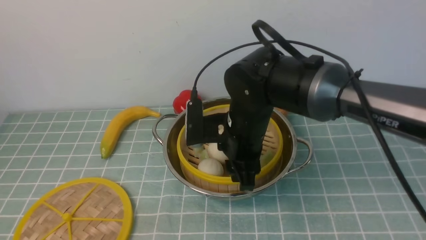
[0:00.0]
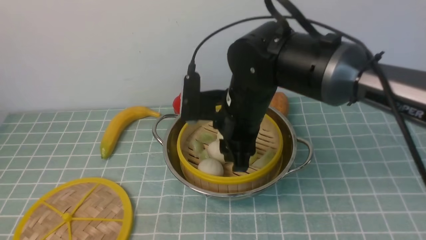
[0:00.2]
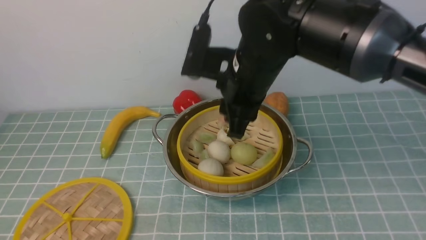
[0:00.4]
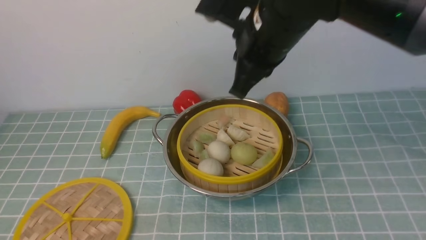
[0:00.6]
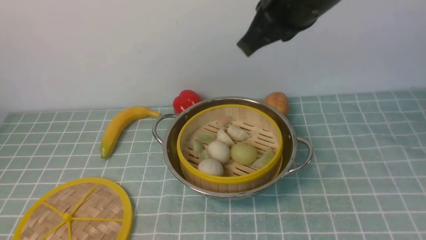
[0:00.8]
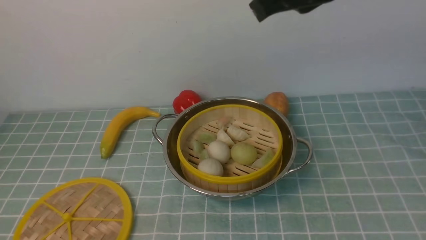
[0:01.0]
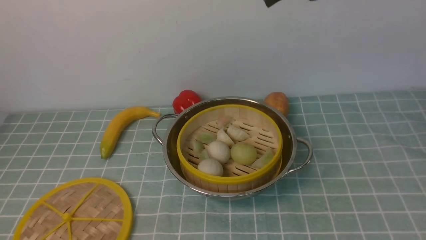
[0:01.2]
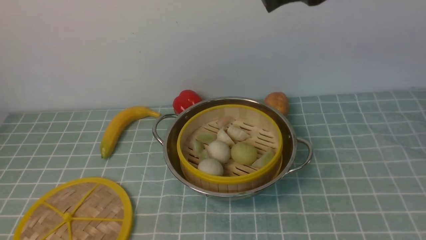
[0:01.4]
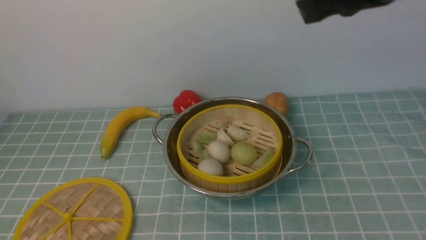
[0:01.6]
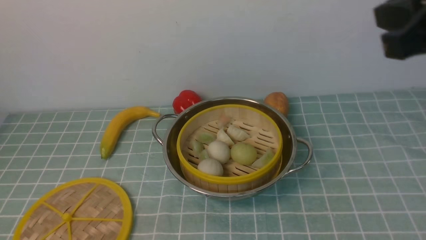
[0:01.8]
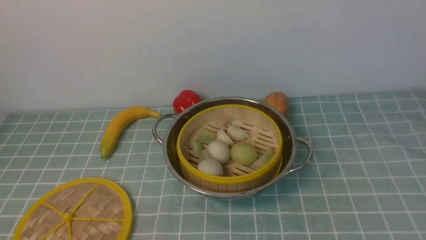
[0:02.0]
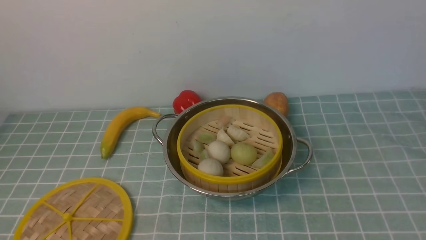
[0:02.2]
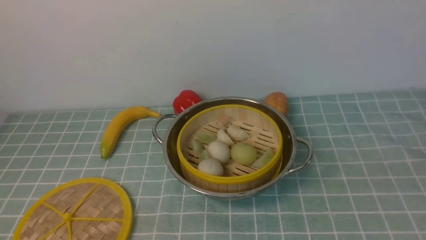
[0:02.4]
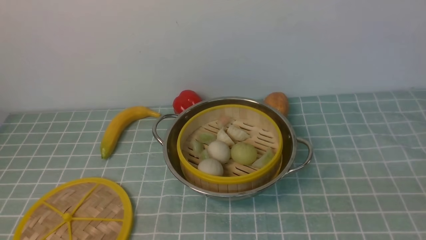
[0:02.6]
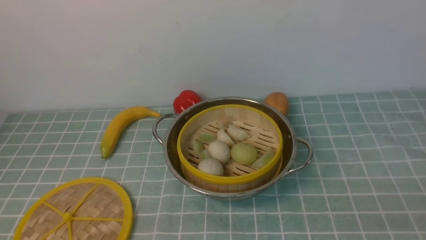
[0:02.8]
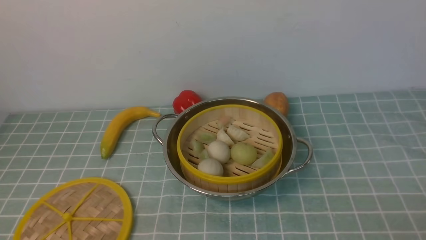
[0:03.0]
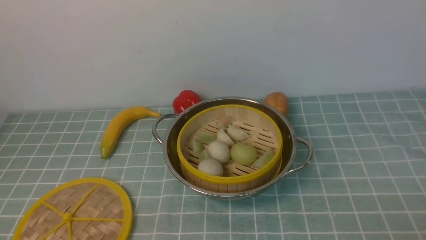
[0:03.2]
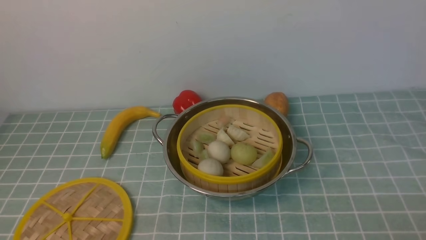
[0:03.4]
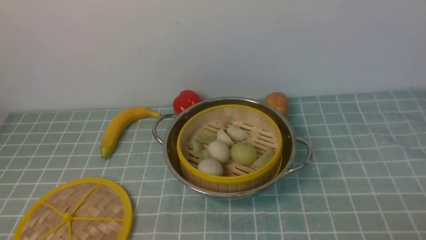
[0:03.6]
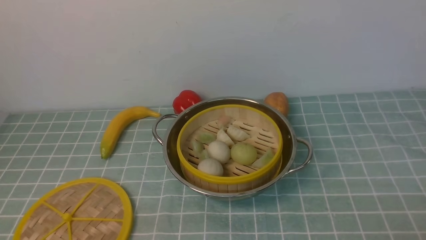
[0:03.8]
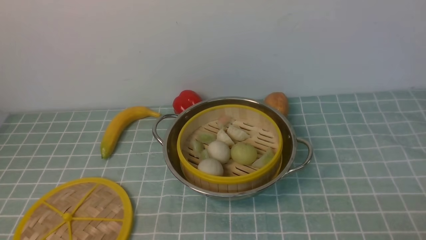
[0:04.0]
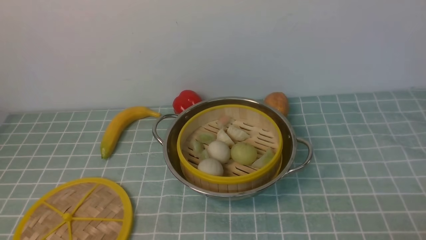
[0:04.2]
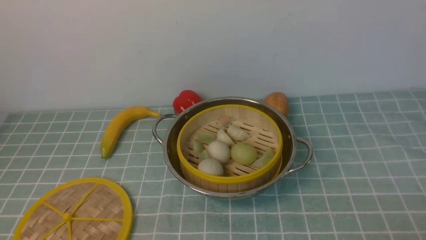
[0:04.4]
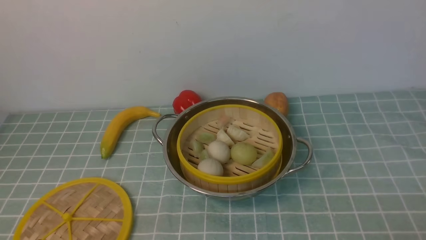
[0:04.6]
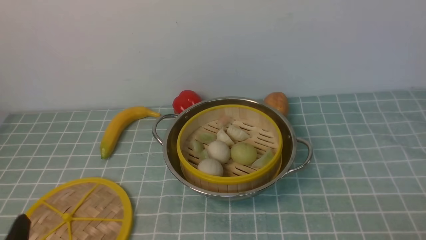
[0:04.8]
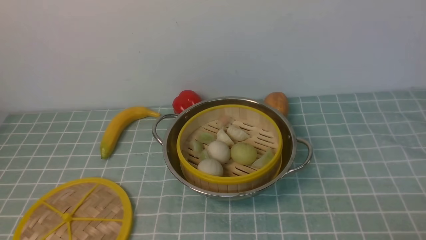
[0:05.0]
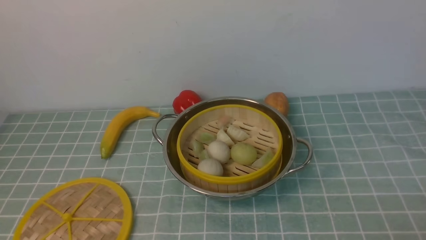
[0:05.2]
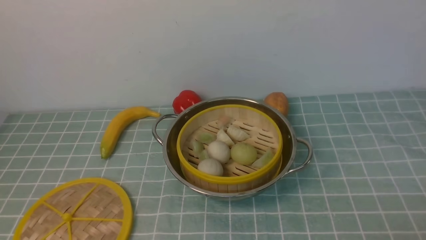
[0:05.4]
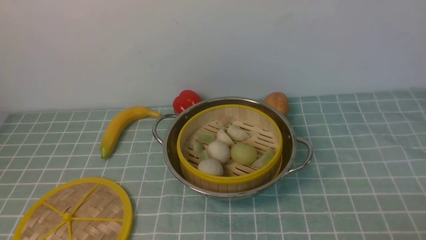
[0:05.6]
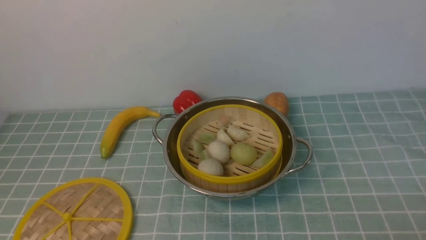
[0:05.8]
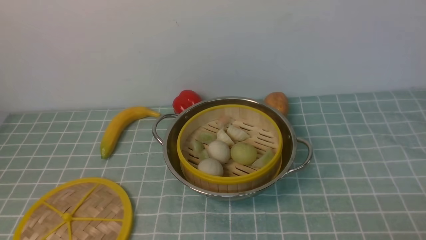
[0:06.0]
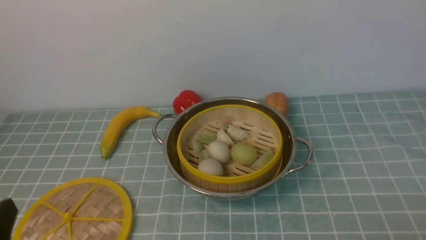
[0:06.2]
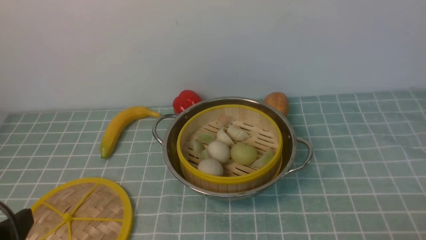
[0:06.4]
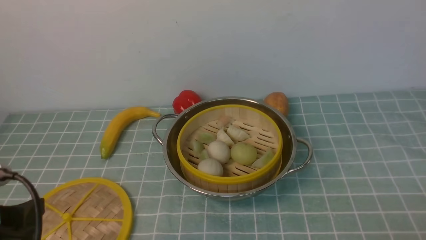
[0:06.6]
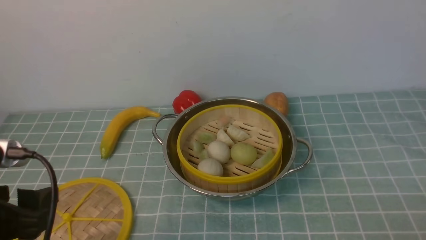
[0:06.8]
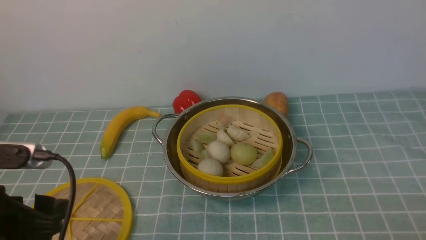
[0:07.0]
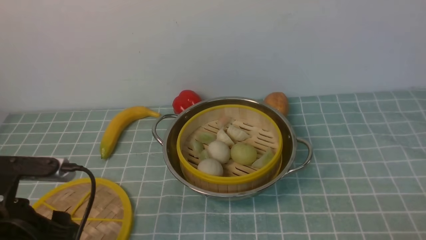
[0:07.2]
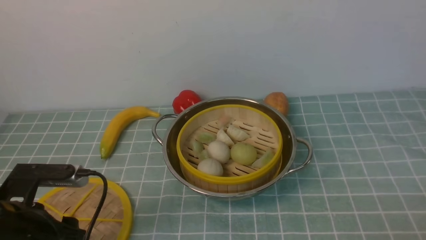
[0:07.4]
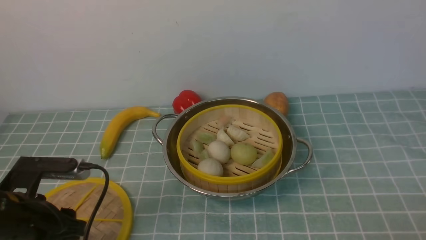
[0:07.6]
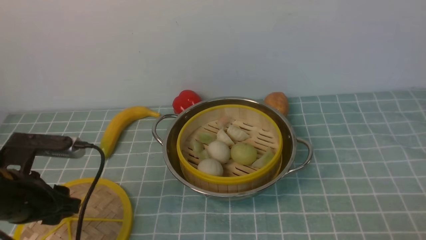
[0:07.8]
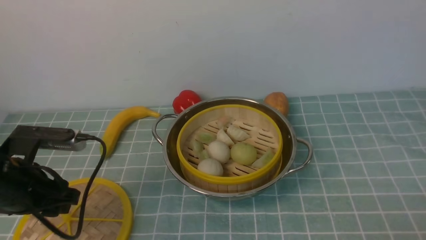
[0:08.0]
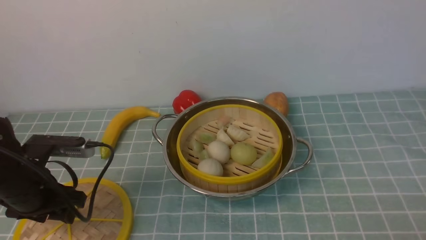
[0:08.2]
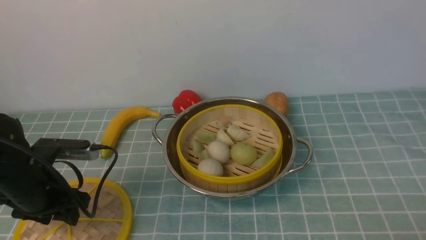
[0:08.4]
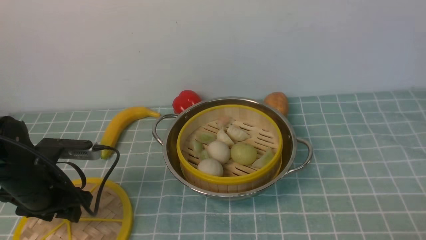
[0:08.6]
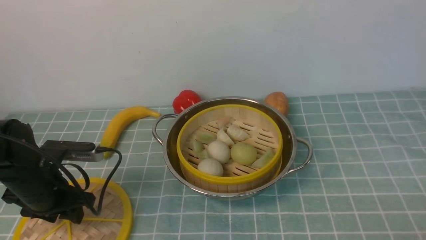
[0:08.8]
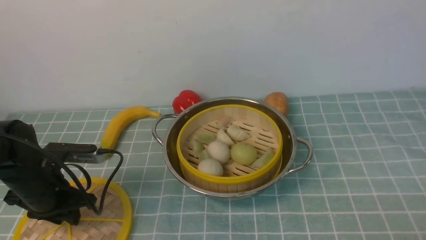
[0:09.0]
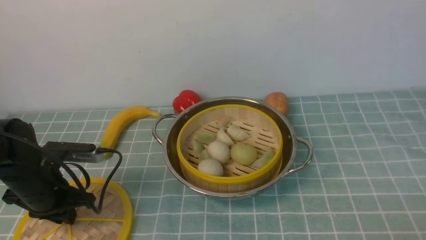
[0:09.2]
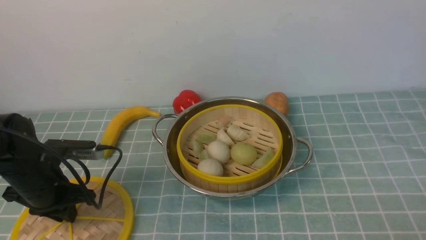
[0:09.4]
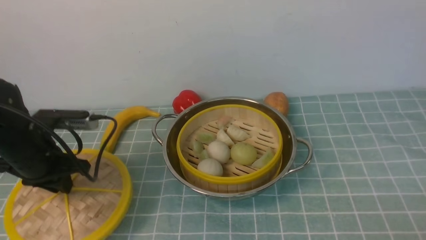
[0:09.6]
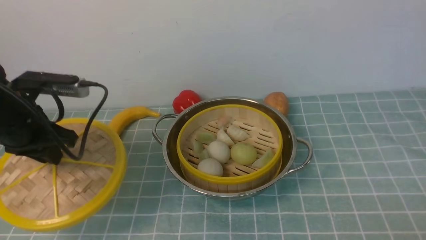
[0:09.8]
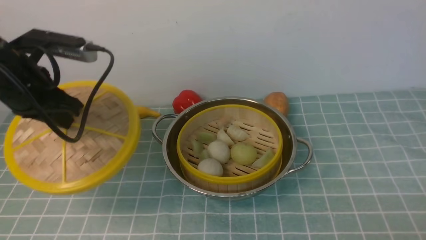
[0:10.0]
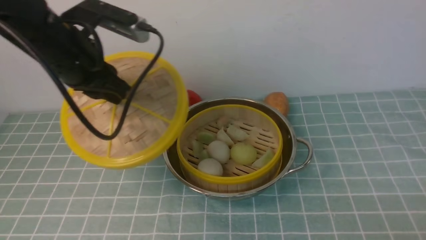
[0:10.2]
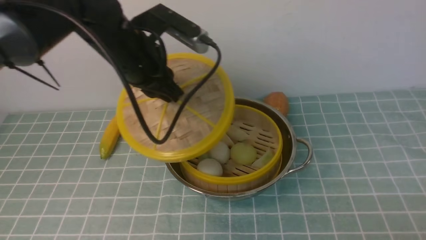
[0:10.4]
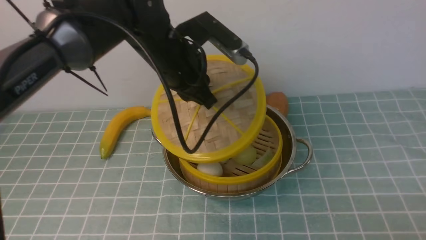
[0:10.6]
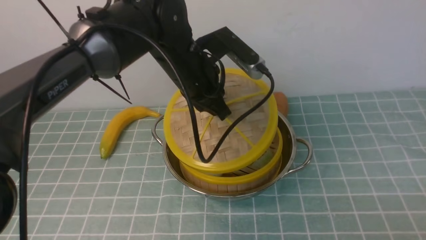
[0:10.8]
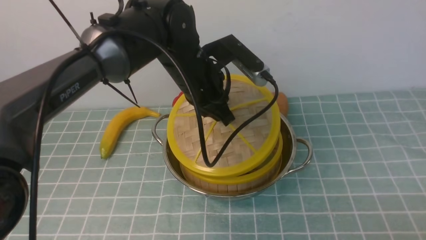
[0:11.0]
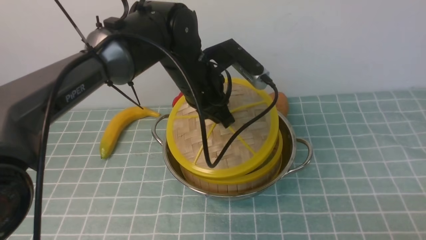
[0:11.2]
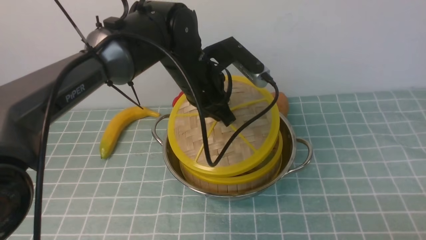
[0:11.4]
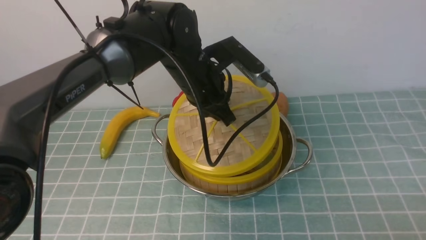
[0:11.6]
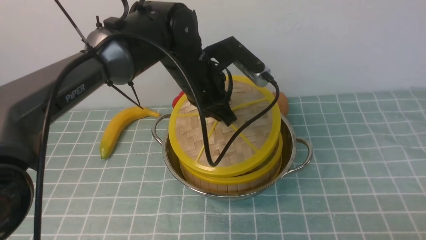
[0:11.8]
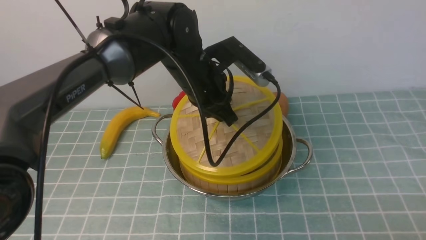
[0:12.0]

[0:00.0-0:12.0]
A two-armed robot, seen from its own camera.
Task of the whole recording: place the steamer in the pot on the blue tablecloth, and put the lid on the steamer.
Step, 0:00.4 to 0:09.8: use the left arm to lift the lid of the steamer.
0:00.0 to 0:01.6: The right gripper shifts some 25 cm upward and to the right, and closes up.
0:01.6 to 0:03.0: The right gripper moves downward, backward and to the right, some 35 cm, and opens up.
0:06.0 to 0:07.6: The left gripper goes approximately 15 cm forward and downward.
0:07.6 to 0:09.0: The left gripper moves forward, roughly 10 cm, and closes up.
0:09.0 to 0:10.4: The left gripper is displaced upward, to the right and forward by approximately 25 cm.
0:10.4 to 0:12.0: The left gripper travels to the right and downward by roughly 15 cm.

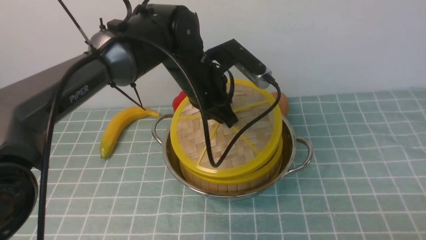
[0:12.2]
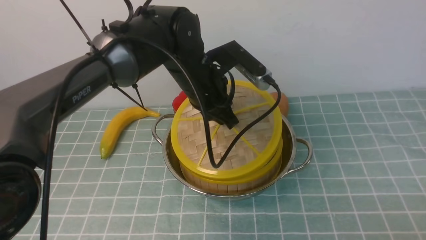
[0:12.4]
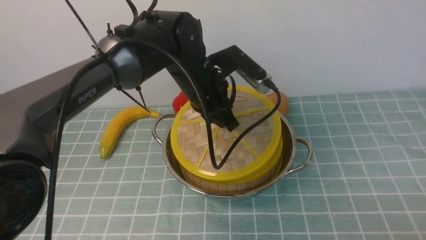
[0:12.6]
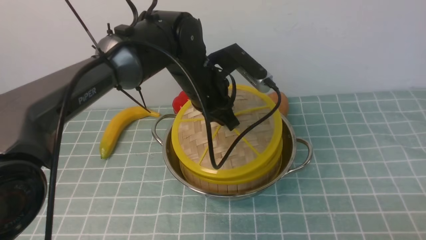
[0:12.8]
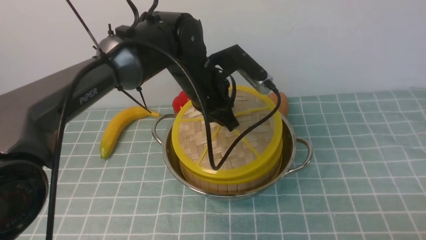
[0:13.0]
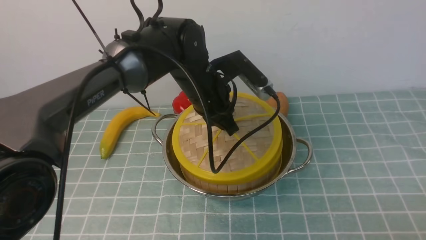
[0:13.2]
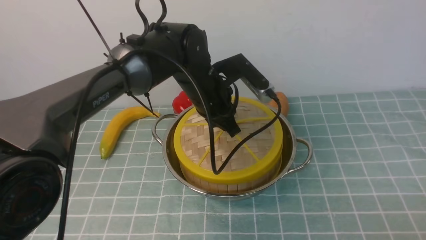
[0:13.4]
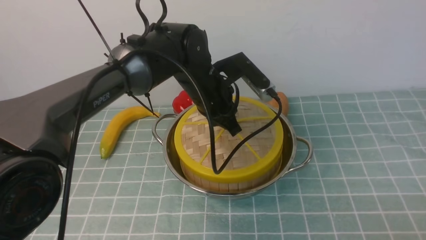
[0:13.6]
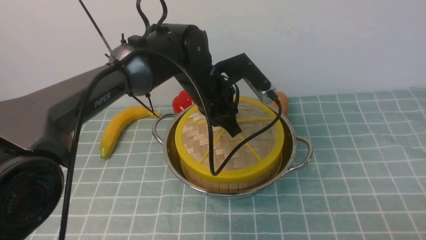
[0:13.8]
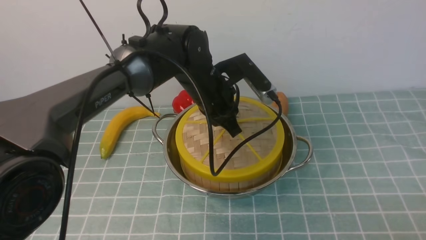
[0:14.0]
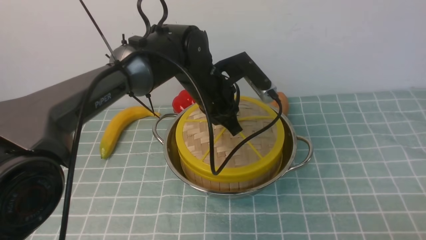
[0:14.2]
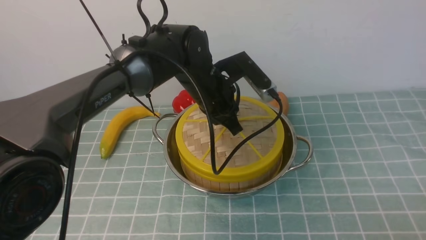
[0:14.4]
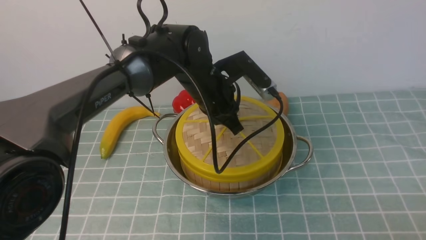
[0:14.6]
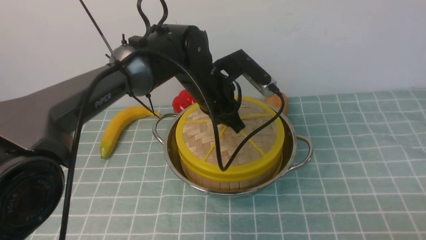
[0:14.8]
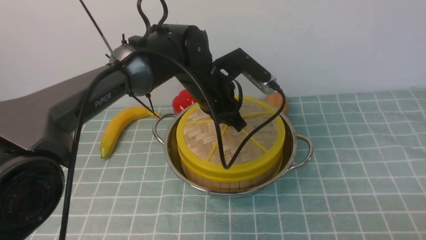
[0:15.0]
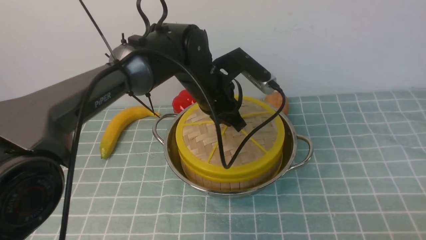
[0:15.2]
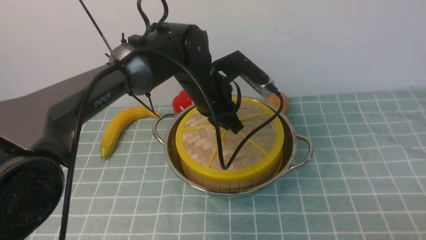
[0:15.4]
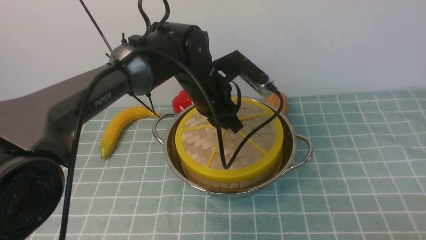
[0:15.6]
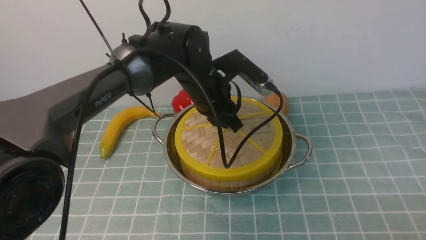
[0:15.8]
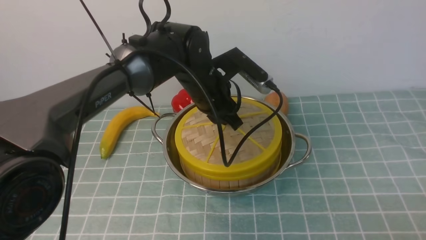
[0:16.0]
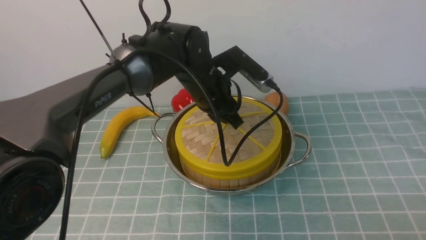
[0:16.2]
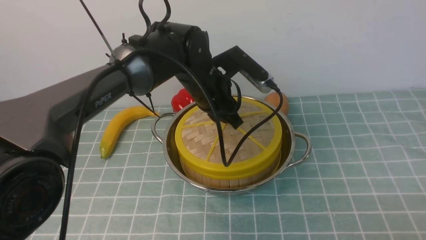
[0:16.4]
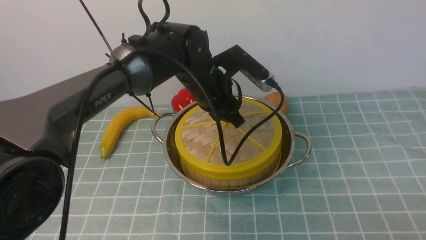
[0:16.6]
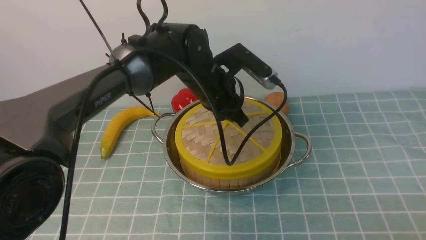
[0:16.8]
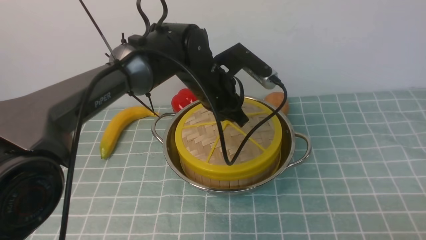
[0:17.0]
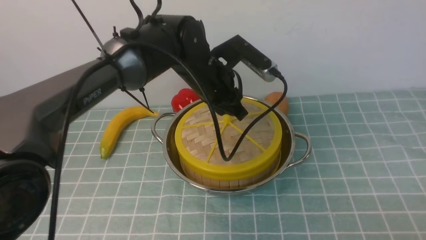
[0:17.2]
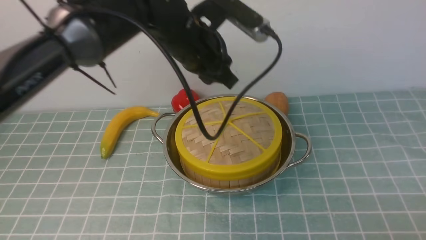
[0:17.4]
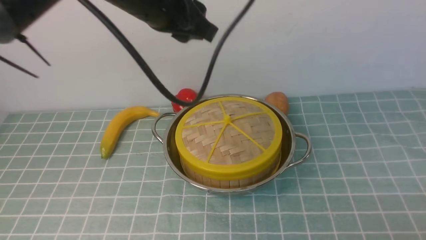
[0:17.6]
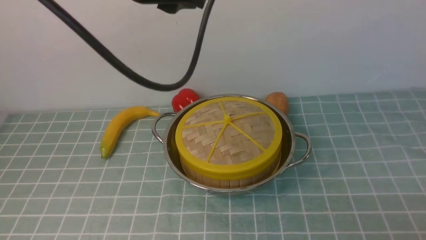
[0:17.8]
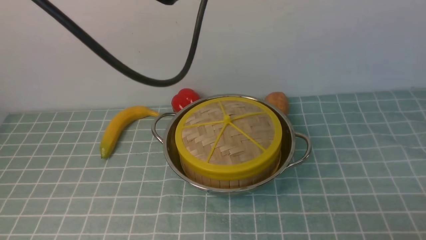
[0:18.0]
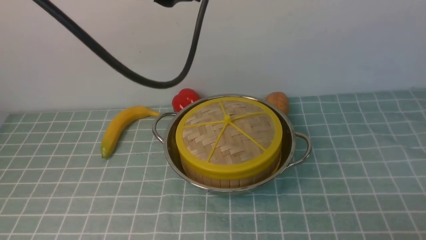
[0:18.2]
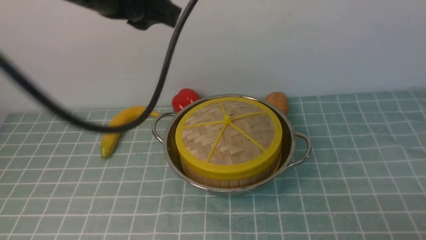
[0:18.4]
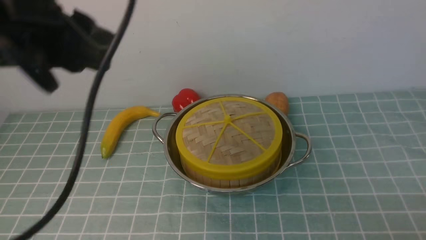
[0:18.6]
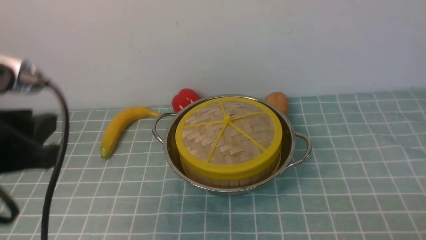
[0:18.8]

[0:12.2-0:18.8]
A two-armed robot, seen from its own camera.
Task of the whole recording: place the steamer in the pot on the blue tablecloth, and put the lid on the steamer.
Step, 0:12.2 to 0:17.6: use the left arm to place the steamer lid on the steamer.
0:13.8 to 0:17.2: The grippers move only a little.
0:17.2 to 0:18.8: The left gripper heads backward, to the left and upward, covering some 30 cm.
